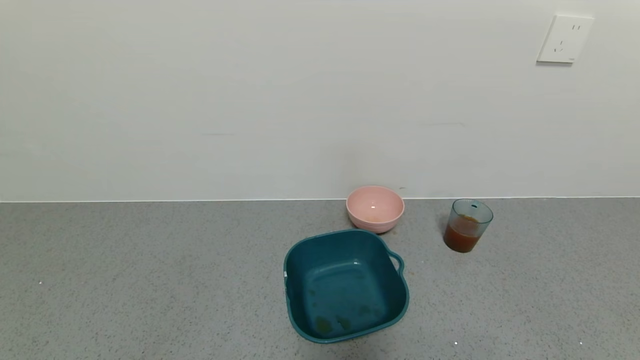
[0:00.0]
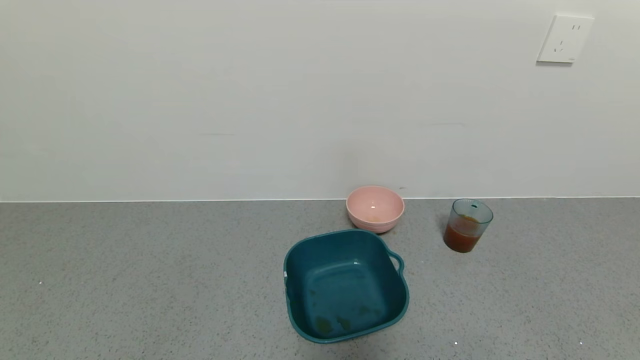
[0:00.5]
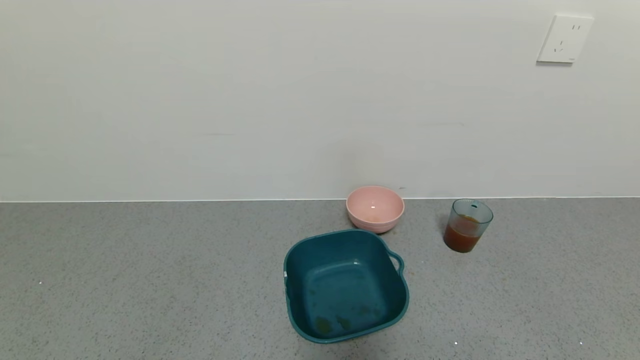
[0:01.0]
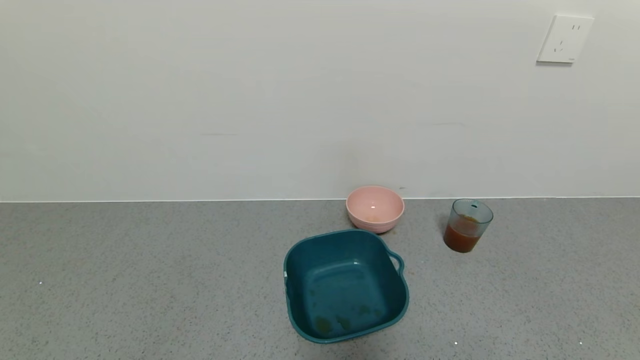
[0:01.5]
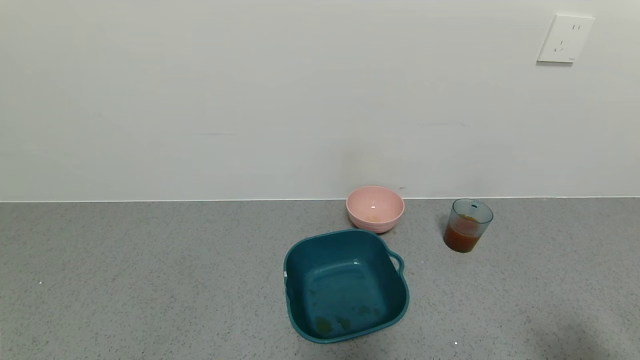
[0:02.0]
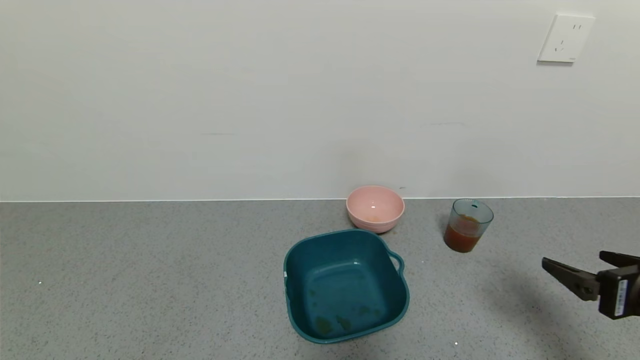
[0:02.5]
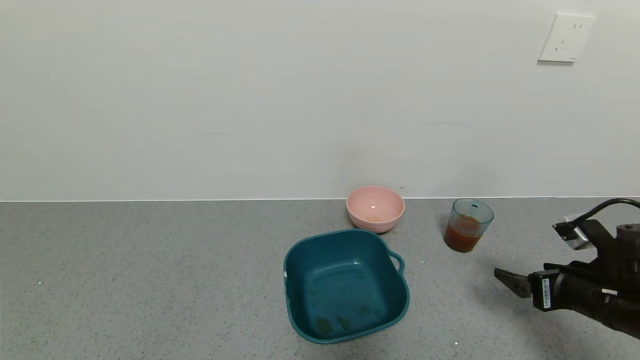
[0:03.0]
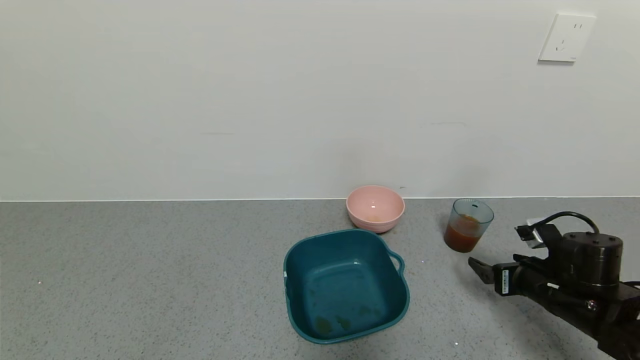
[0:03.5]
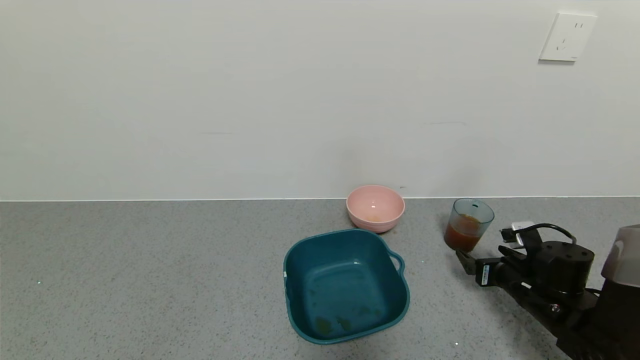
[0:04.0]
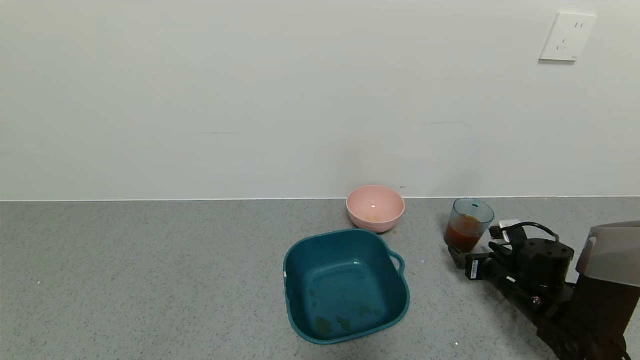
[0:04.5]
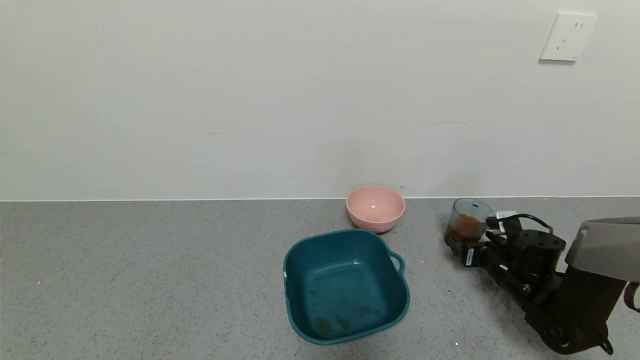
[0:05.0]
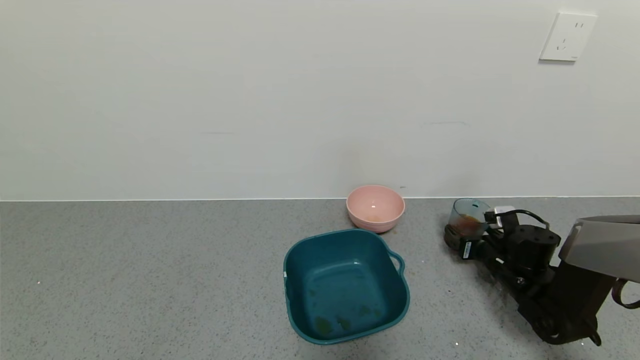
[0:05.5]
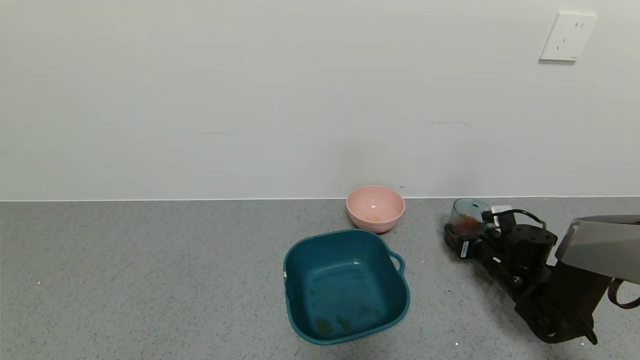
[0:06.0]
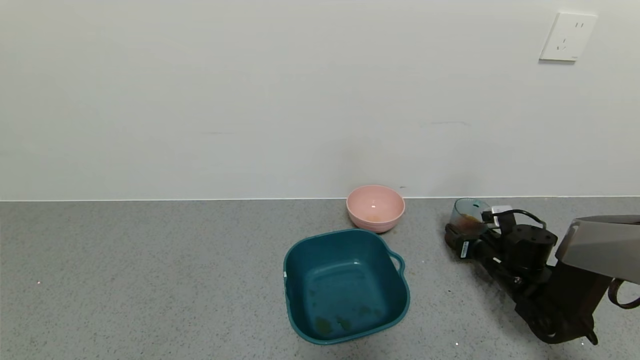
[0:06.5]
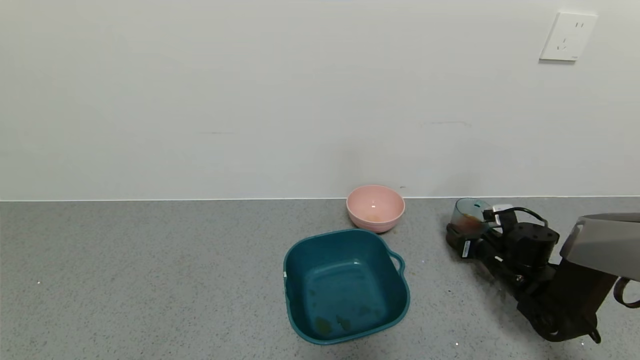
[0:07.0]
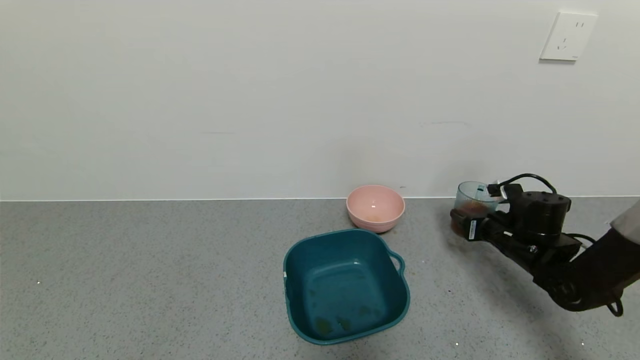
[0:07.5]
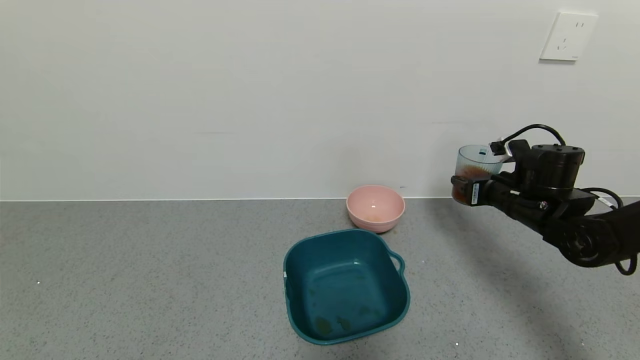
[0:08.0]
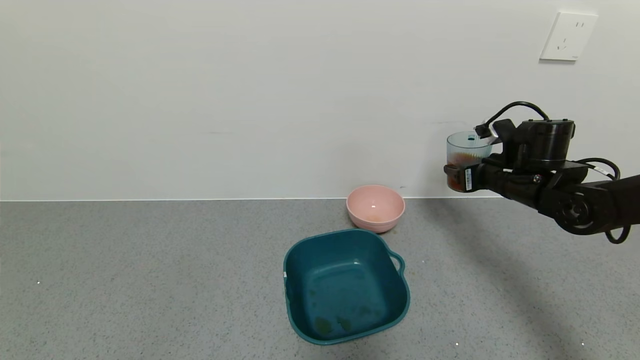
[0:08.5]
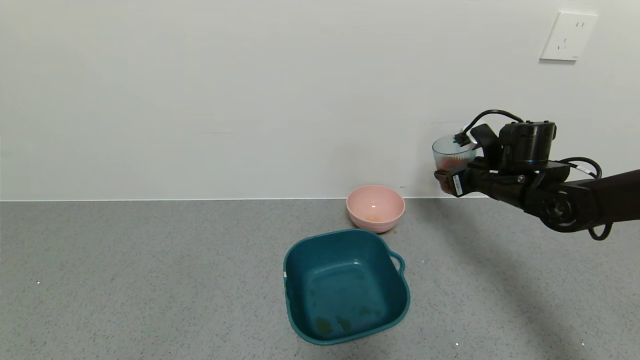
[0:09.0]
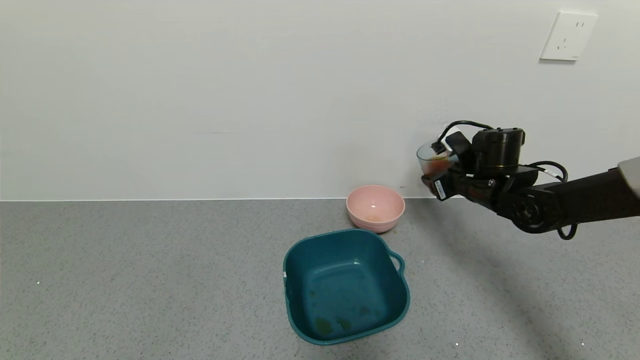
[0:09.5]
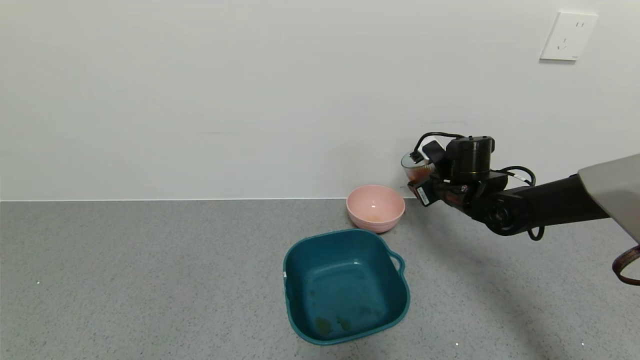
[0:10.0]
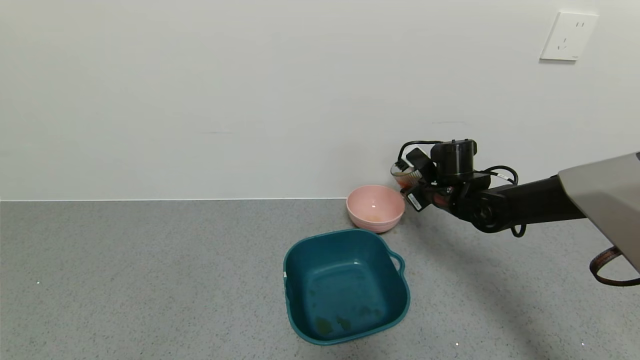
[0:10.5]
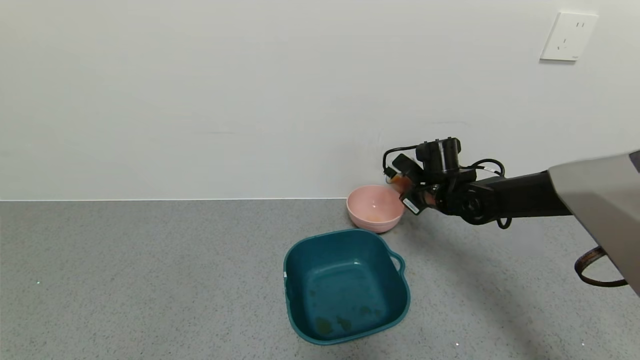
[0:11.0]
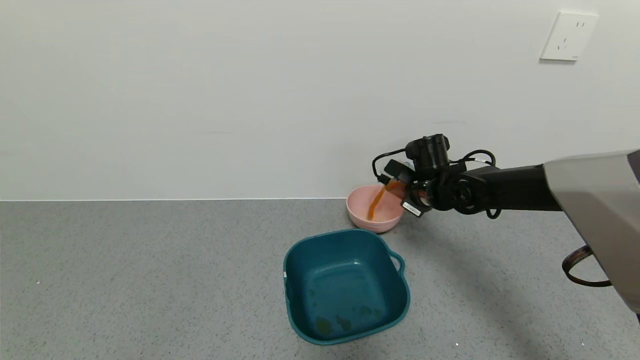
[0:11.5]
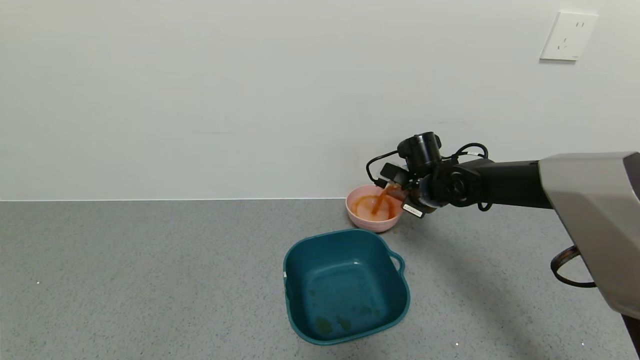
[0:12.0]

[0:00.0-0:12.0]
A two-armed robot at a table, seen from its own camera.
Task of the whole recording: use a gripper to pick up the cup and pour the liquid into a bowl or tray.
Step, 0:00.0 to 0:07.5: Pick up blue cup filled with tea with right gripper.
0:00.0 to 0:02.0: The right gripper goes roughly 15 cm upward and forward.
0:02.0 to 0:04.0: The right gripper shifts about 30 cm forward and downward.
0:04.0 to 0:06.0: The right gripper moves forward, approximately 5 cm, and closes up.
0:06.0 to 0:08.0: The right gripper shifts some 15 cm upward, and closes its fingers.
0:08.0 to 0:10.0: The right gripper shifts about 10 cm to the left and forward.
0:10.0 to 0:12.0: The right gripper travels to the left by approximately 5 cm.

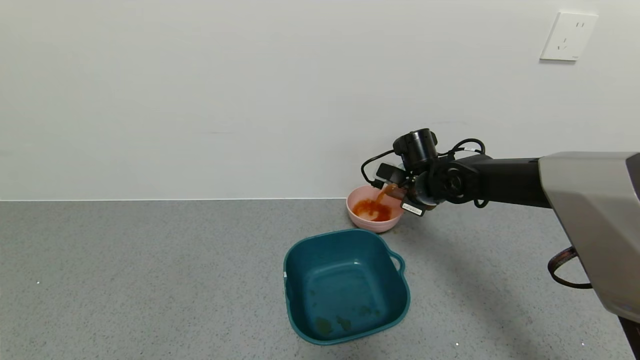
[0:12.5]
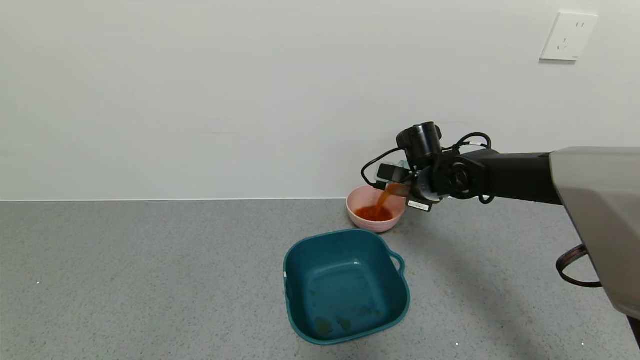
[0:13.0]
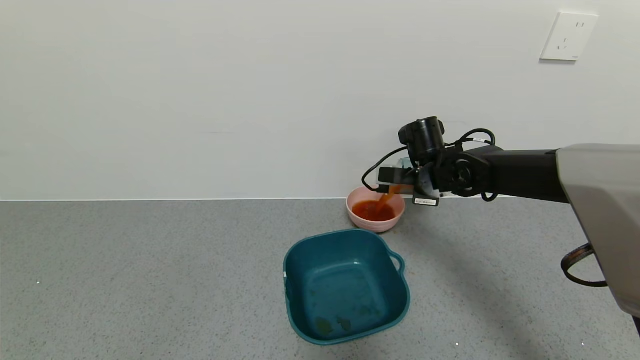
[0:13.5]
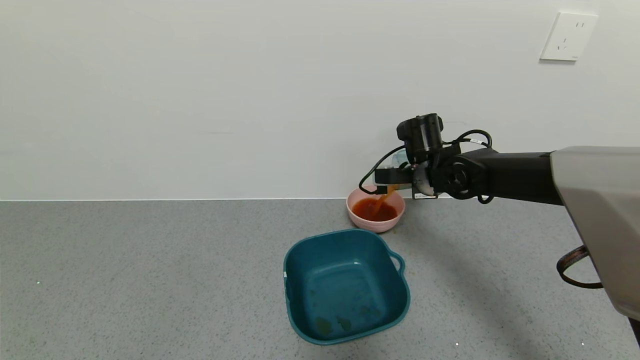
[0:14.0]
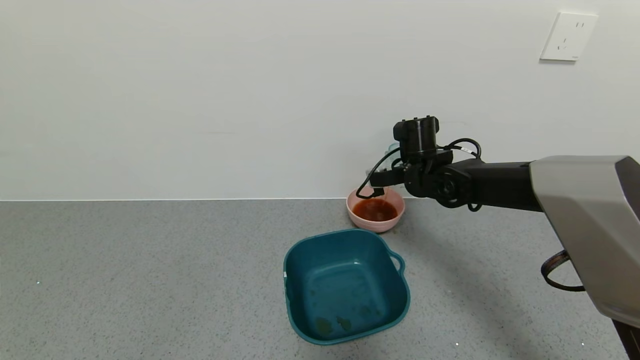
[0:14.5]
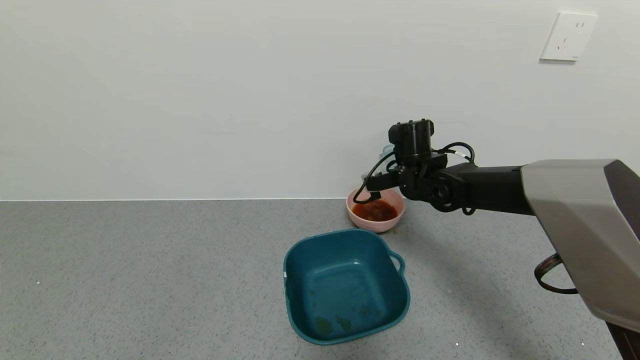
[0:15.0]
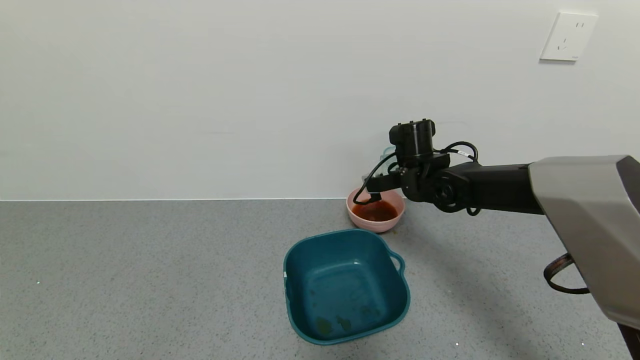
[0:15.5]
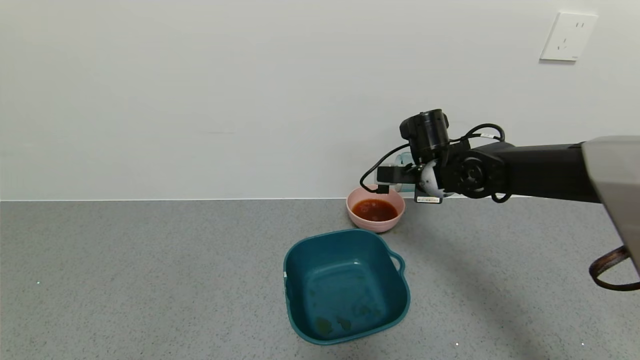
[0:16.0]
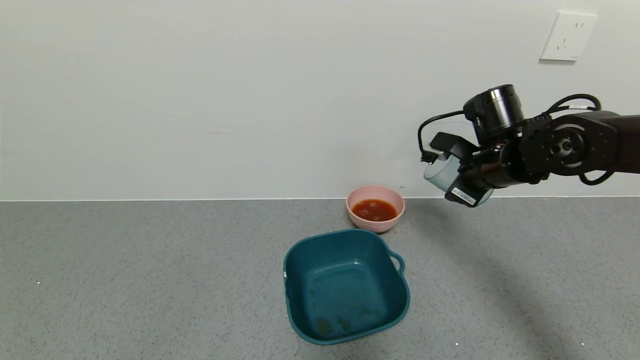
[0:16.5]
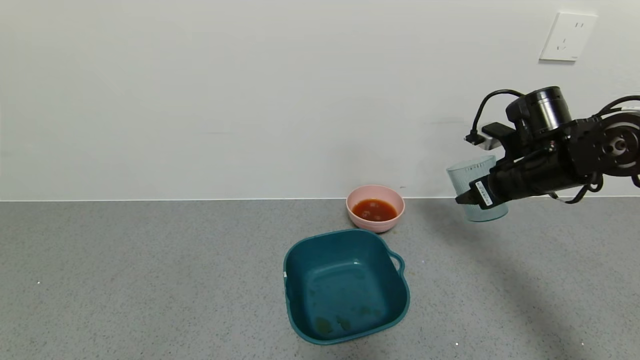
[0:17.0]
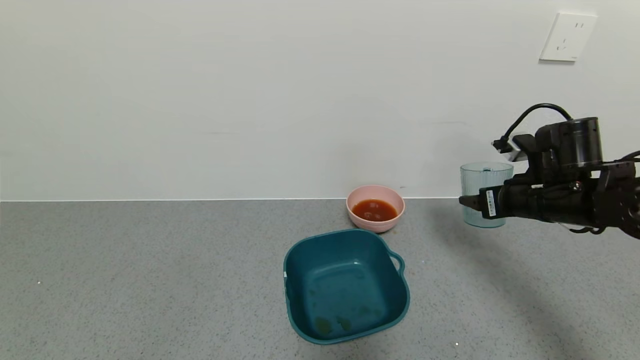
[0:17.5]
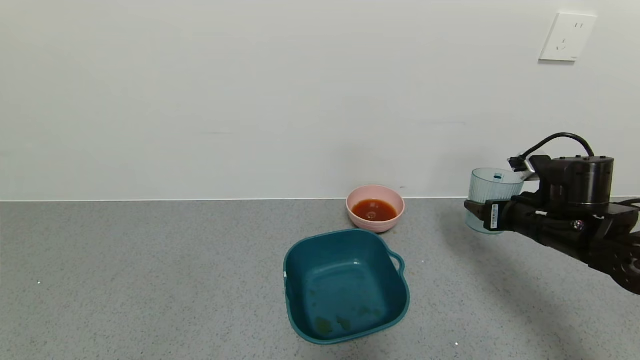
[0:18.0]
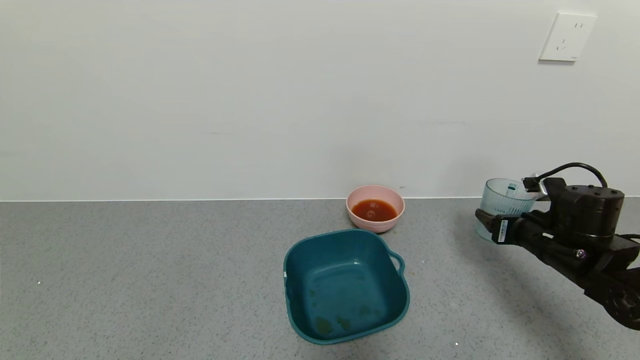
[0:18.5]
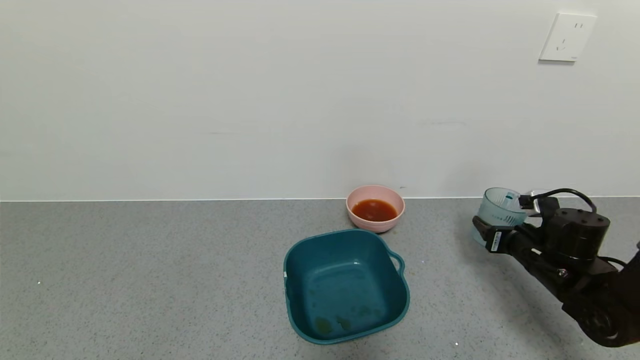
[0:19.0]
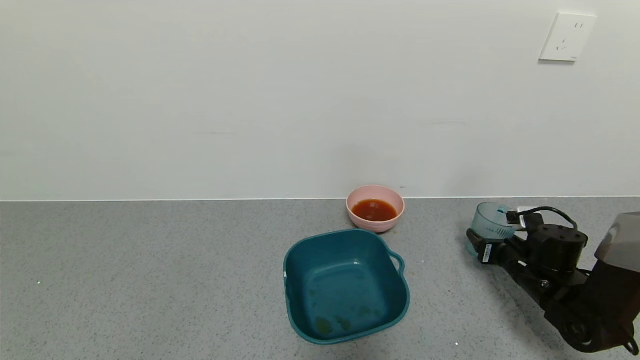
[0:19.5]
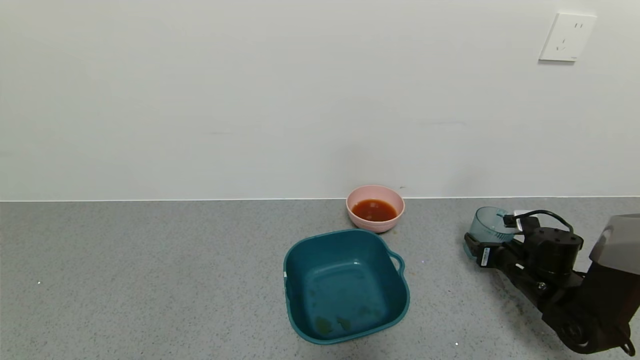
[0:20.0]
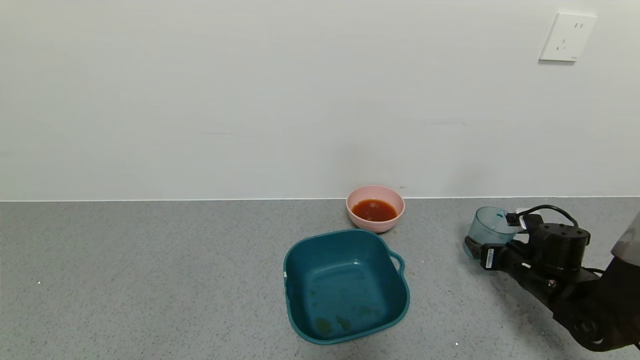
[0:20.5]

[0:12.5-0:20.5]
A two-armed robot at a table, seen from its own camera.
Task of the whole recording: use a gripper to pick up the cup and pour the liquid into a bowl or tray.
Step, 0:12.5 to 0:15.5: Pour the tea into the pink bowl with right gripper.
Step, 0:16.0 to 0:20.0: Place blue cup with tea on the table with right gripper.
0:14.5 to 0:16.5: The right gripper goes roughly 10 cm to the right and backward.
0:16.5 to 0:18.5: The right gripper is displaced downward, to the right and backward by about 15 cm.
0:18.5 to 0:20.5: The right gripper moves downward, approximately 10 cm, and opens up.
